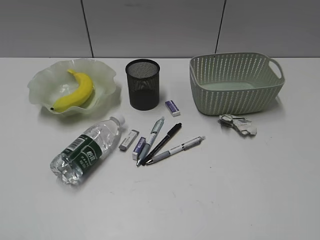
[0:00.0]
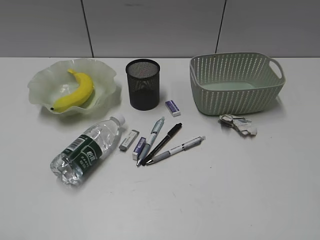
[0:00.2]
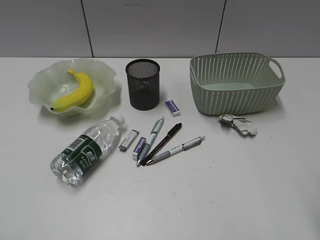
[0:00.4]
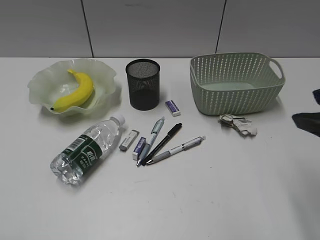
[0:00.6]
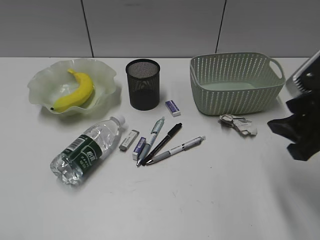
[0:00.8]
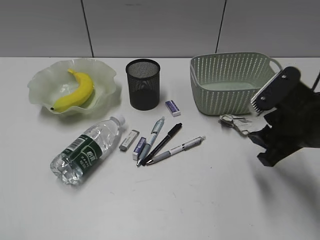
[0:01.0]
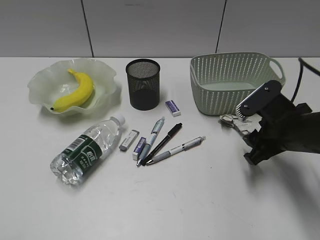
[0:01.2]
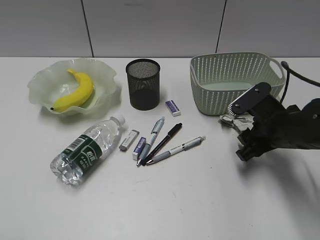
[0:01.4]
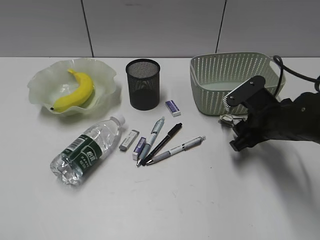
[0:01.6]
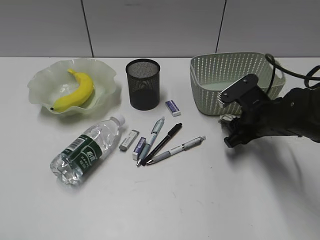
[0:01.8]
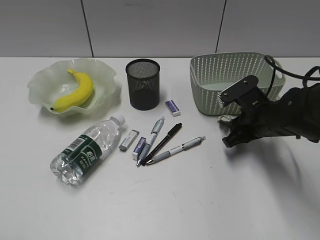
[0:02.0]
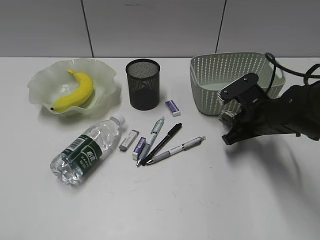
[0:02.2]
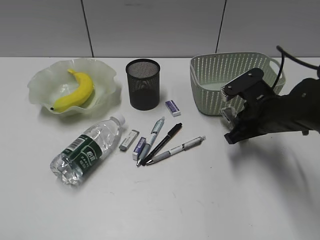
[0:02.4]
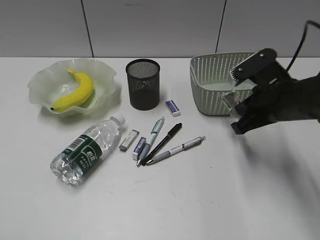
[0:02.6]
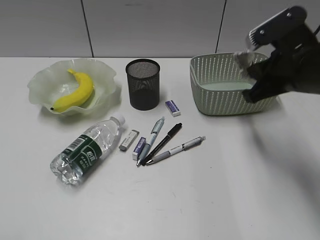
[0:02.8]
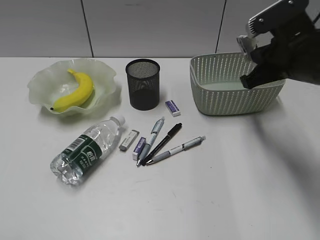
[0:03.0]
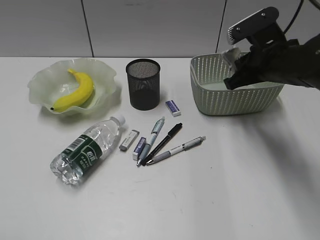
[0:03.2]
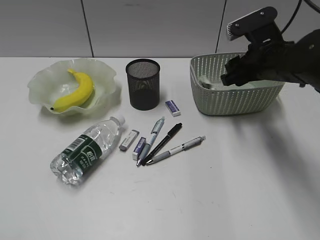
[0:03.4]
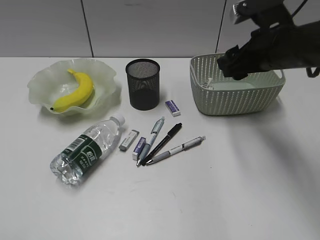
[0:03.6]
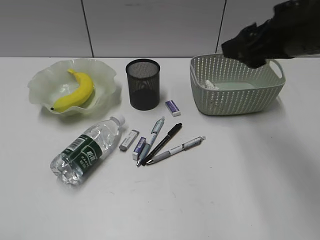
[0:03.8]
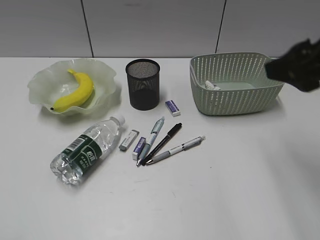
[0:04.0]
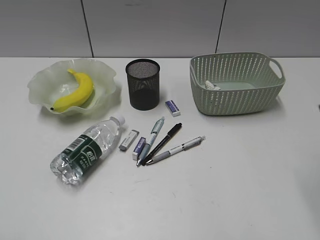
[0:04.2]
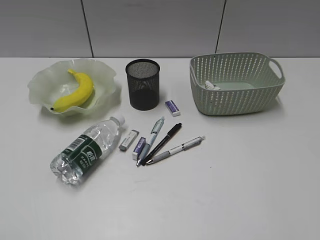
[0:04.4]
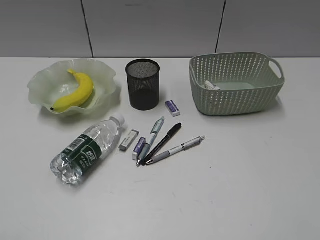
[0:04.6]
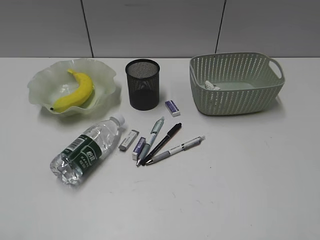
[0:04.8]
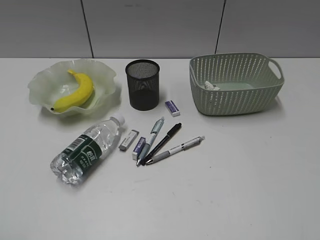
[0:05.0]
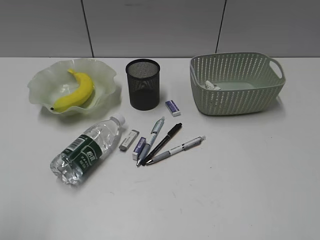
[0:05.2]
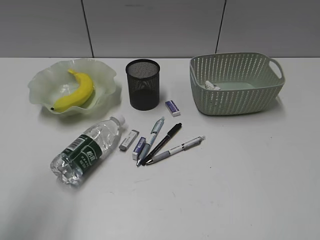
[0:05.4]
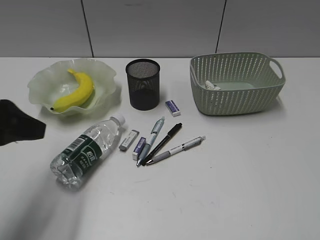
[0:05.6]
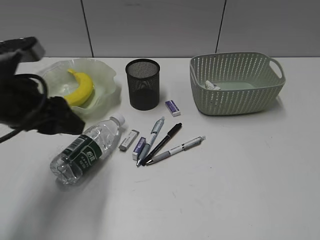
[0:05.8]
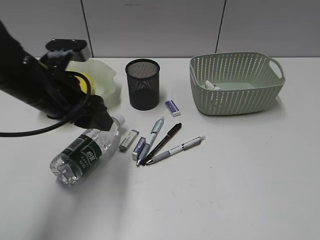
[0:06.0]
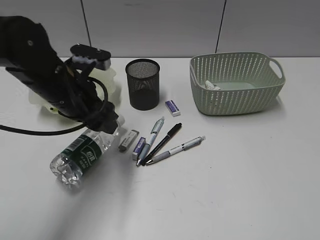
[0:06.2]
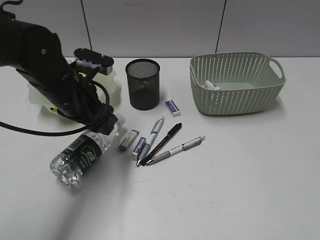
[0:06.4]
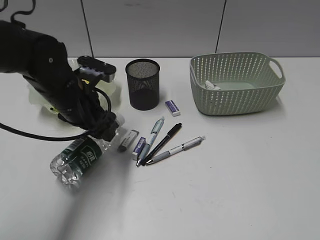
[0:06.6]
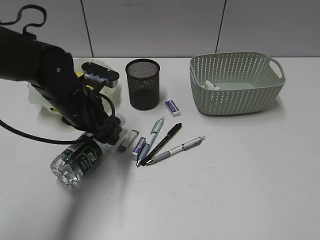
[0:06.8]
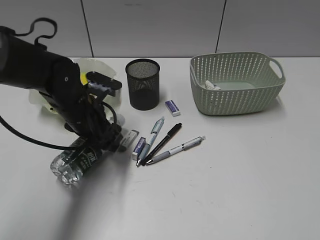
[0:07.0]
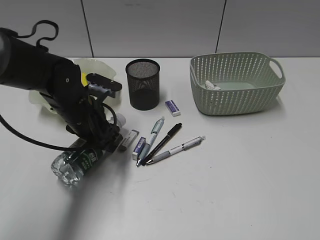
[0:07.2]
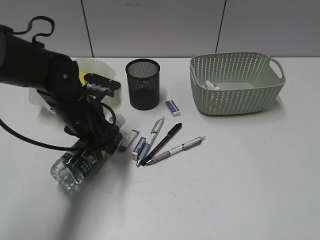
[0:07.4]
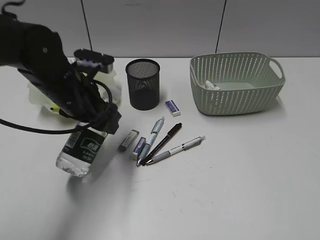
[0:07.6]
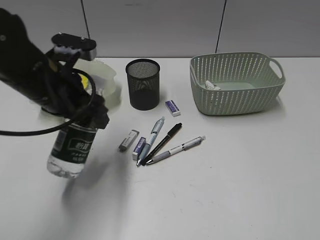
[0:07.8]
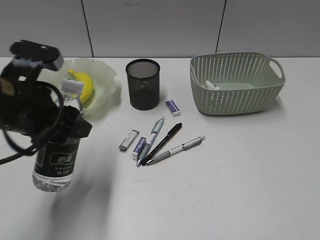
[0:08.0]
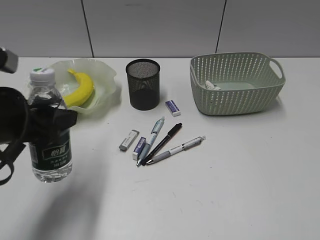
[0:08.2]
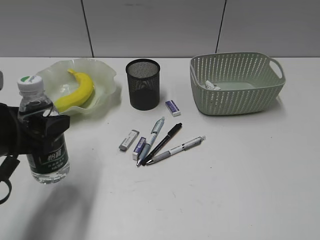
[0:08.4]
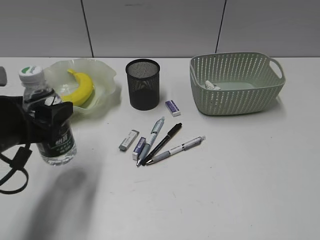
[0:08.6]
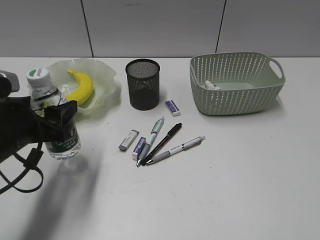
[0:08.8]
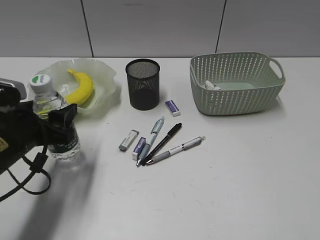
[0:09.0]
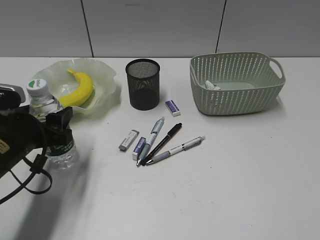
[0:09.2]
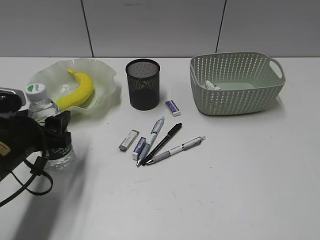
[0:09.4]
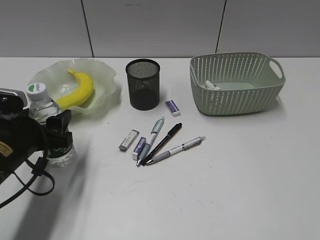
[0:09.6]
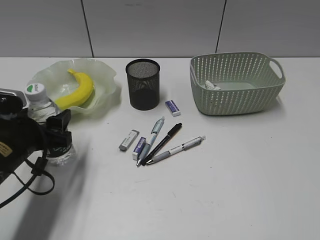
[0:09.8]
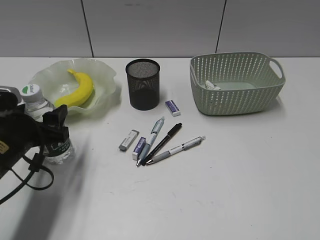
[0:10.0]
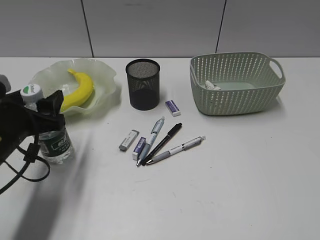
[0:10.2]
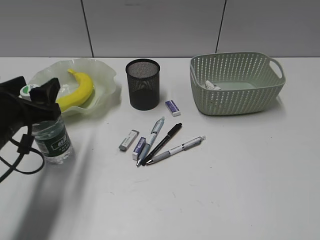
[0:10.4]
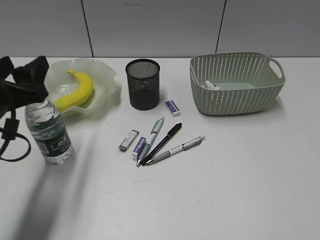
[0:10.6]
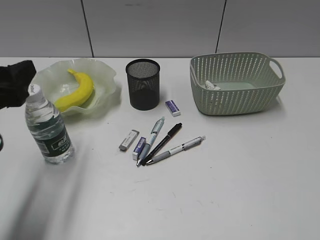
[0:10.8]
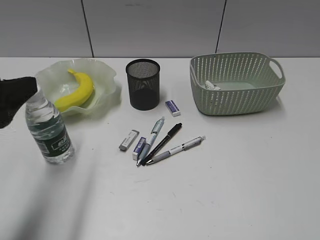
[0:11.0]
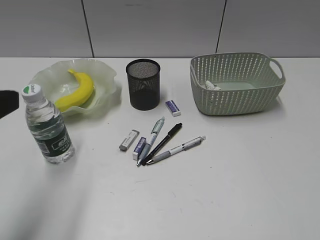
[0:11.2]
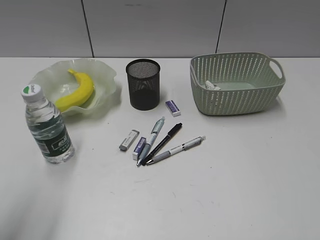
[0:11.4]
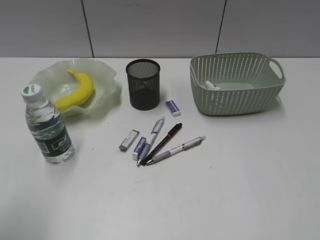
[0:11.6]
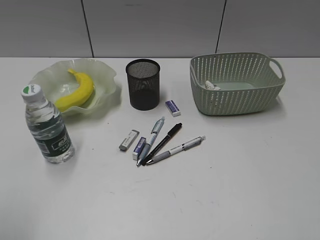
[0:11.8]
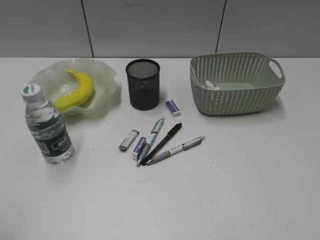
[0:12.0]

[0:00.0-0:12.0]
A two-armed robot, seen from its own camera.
Step, 0:00.0 to 0:02.2: Grasp the waste paper with right gripper.
Step, 0:02.4 to 0:03.4: Place the waste paper in the basket with right gripper.
Step, 0:03.6 to 0:07.2: Grasp the bottle with left gripper.
Step, 0:07.4 to 0:10.4: Stand the bottle with left gripper.
0:00.0 to 0:01.6: The right gripper goes roughly 35 cm forward and downward.
0:01.6 to 0:03.0: The right gripper shifts roughly 10 cm upward, and closes its fingers.
0:03.0 to 0:04.4: The right gripper is displaced backward and upward by roughly 20 cm, and opens its fingers.
0:04.4 to 0:06.0: The right gripper heads backward, covering some 10 cm. The left gripper goes approximately 30 cm forward and to the right.
0:07.6 to 0:09.0: The left gripper is displaced backward and to the left by some 10 cm.
0:09.0 to 0:10.4: The grippers make only small movements.
0:10.4 to 0:12.0: The left gripper is displaced backward, upward and to the left by approximately 25 cm.

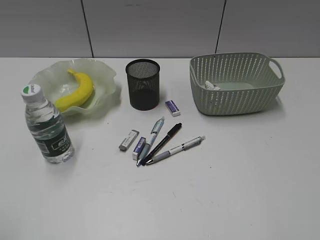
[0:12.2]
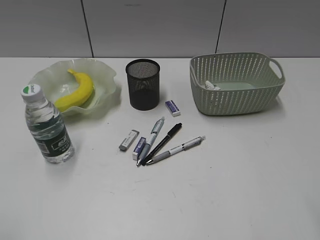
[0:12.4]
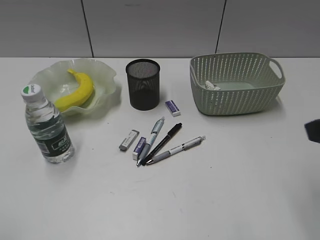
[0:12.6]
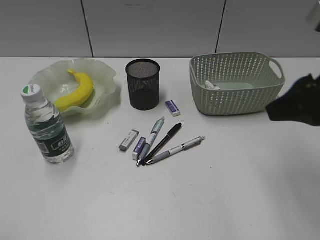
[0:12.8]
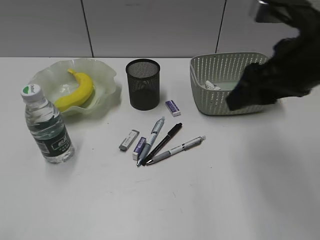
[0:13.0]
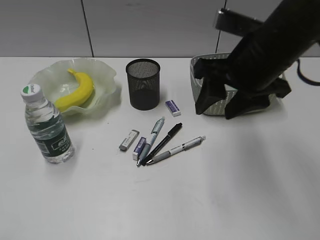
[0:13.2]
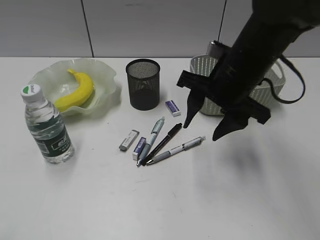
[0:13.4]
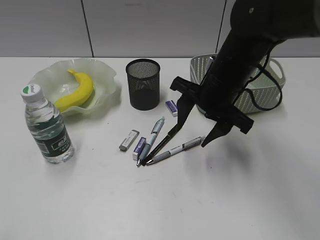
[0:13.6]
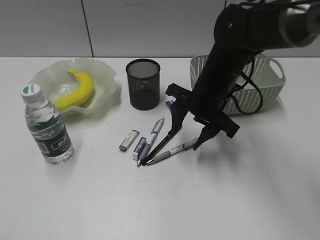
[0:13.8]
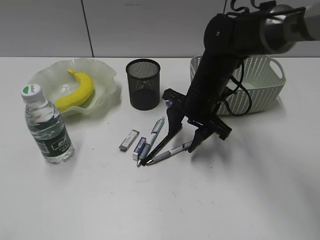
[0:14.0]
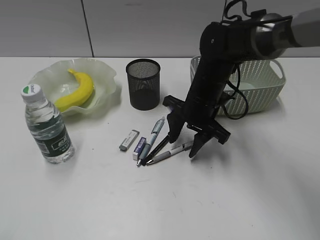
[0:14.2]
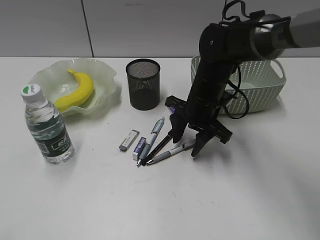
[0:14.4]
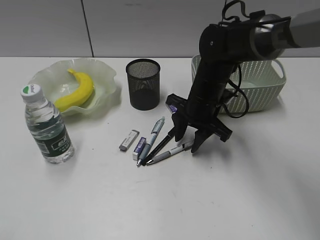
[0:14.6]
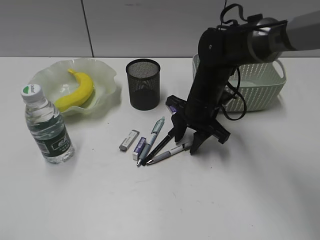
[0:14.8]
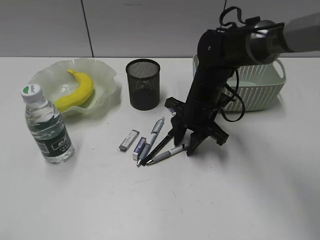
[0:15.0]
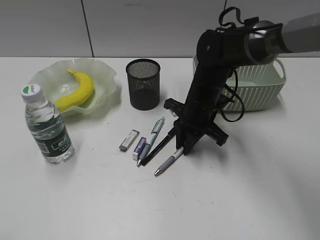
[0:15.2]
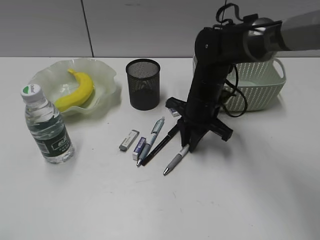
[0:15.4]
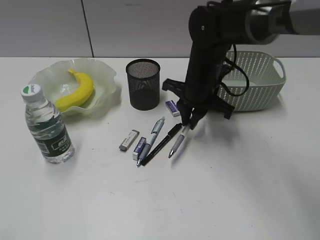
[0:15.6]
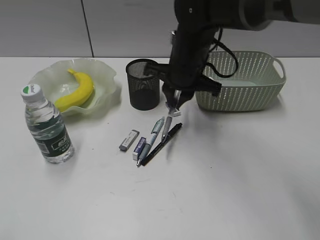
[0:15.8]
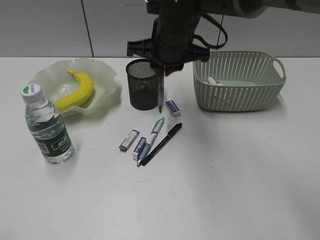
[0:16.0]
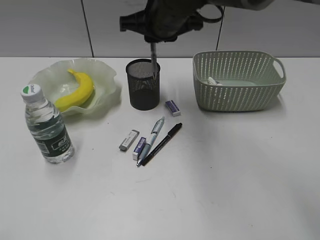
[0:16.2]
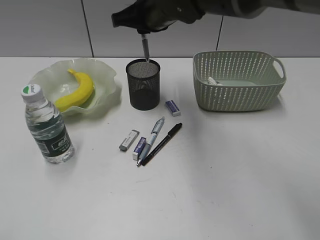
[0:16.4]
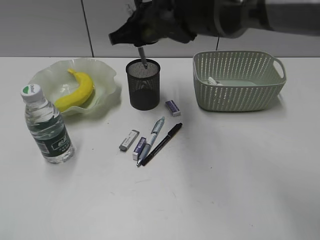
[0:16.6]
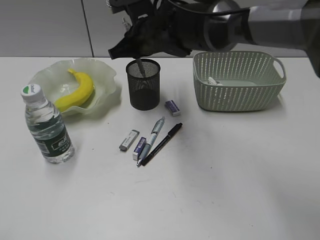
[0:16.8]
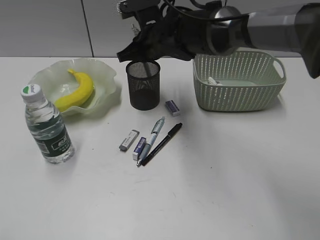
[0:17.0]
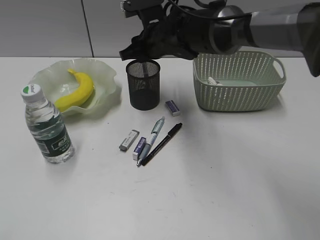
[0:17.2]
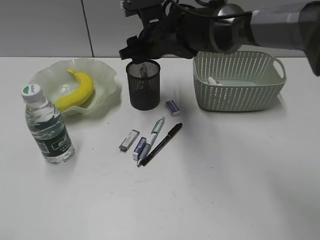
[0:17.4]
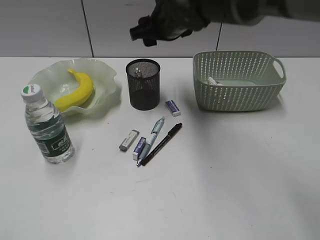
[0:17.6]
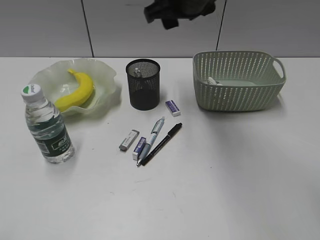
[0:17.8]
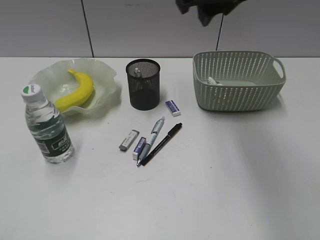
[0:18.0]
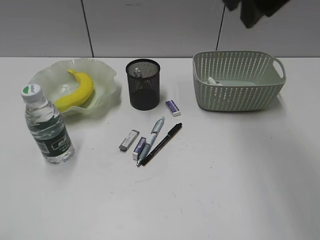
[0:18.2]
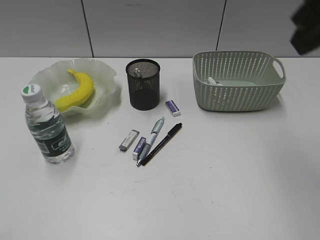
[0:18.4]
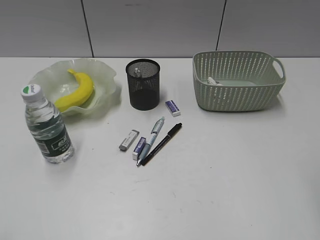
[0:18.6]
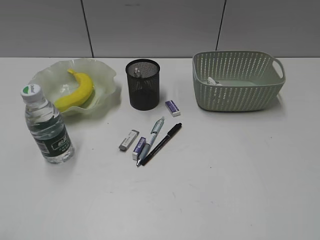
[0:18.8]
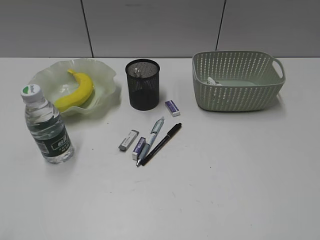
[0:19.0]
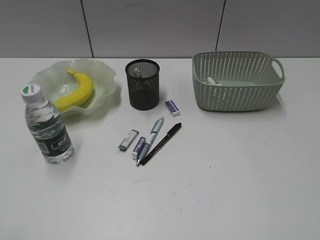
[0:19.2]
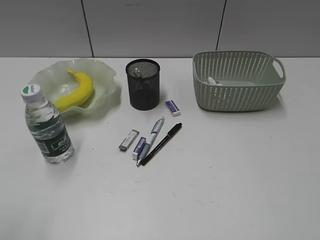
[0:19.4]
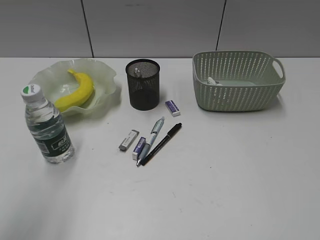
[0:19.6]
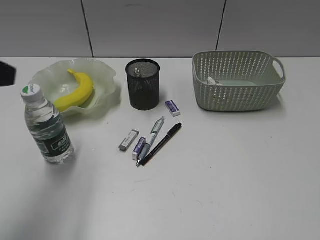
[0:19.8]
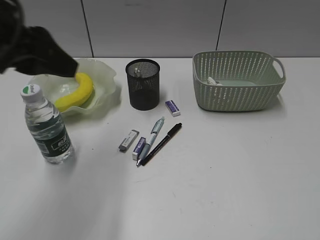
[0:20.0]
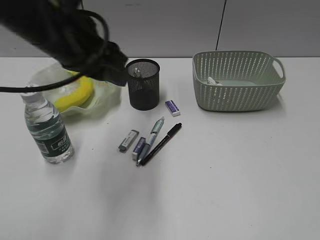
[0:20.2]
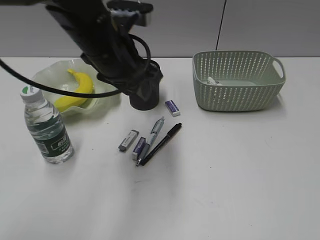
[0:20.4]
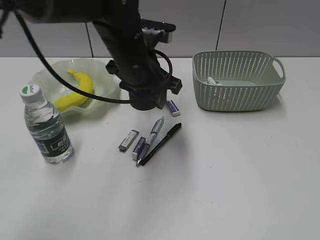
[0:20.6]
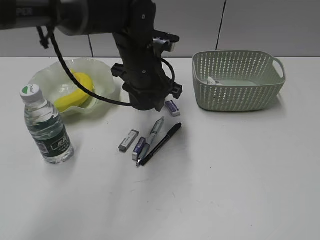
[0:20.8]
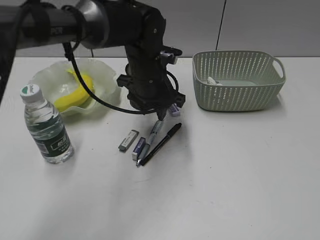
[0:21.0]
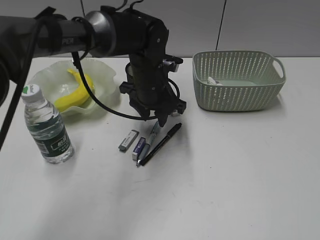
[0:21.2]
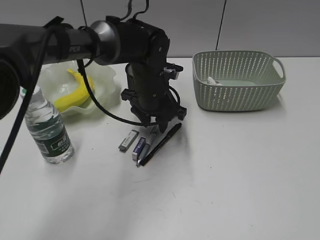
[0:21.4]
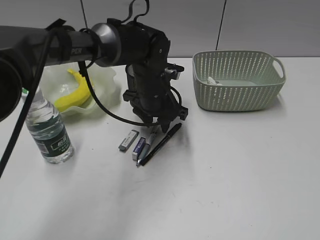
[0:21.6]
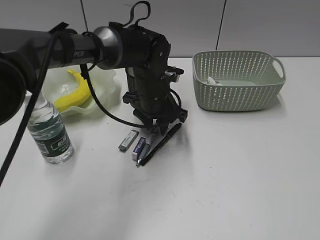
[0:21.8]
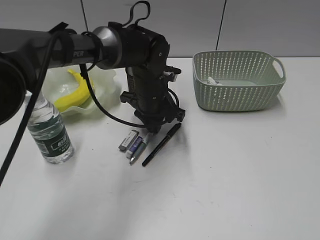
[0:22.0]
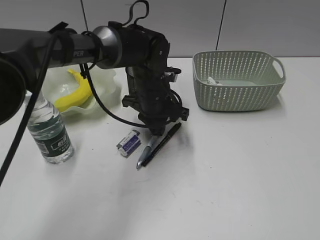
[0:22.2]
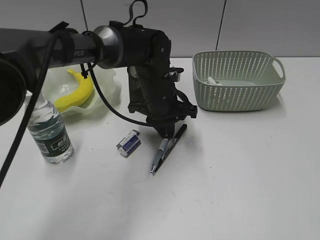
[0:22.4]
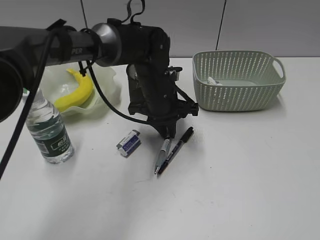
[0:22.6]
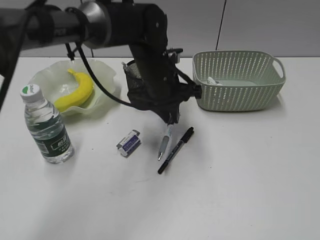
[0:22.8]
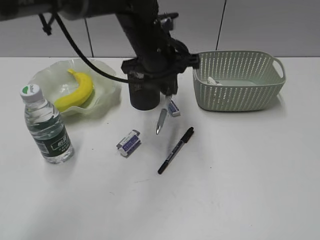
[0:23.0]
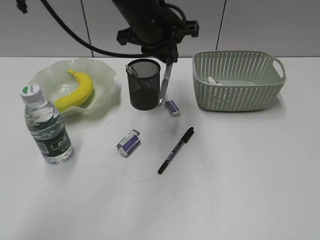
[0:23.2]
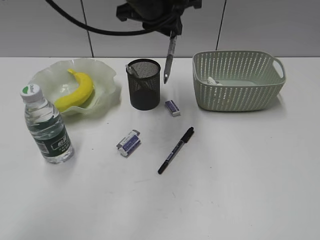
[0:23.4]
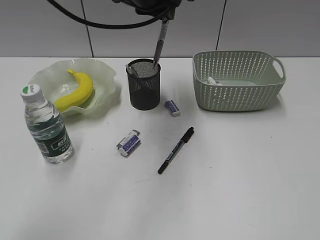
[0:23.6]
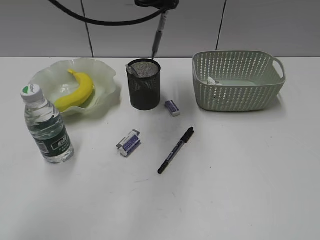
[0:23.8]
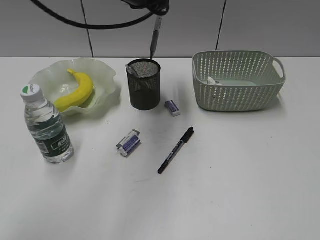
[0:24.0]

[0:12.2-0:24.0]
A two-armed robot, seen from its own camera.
Step, 0:12.2 to 0:15.2: Grasp the gray pen with right gripper.
Step, 0:15.4 to 0:17.4: Place the gray pen in pen holder with right gripper.
Step, 0:17.6 to 0:22.0: Grasp the blue pen with left gripper.
0:12.2 to 0:13.6: The right gripper is displaced forward and to the left by roughly 35 cm.
0:13.6 to 0:15.2: The right gripper is displaced downward by approximately 10 cm, and closes up.
0:15.2 to 0:16.6: The right gripper is displaced upward and to the left by approximately 15 cm.
0:16.6 to 0:18.2: The right gripper is displaced upward, to the right and backward by some 25 cm, and opens its fingers.
0:18.2 to 0:19.6: The left gripper moves forward, approximately 10 cm, while the right gripper goes approximately 35 cm backward and to the right.
0:19.6 to 0:21.0: The left gripper moves forward, to the right and downward, some 40 cm.
0:21.0 to 0:22.6: The left gripper closes its fingers.
0:22.6 to 0:24.0: The left gripper travels upward by approximately 20 cm.
